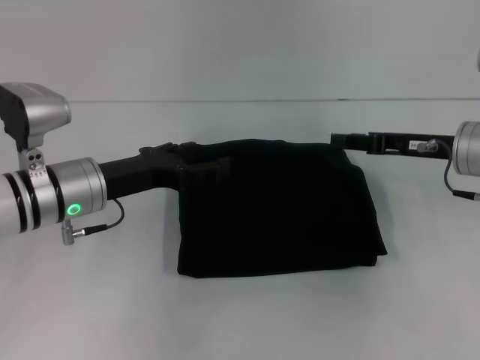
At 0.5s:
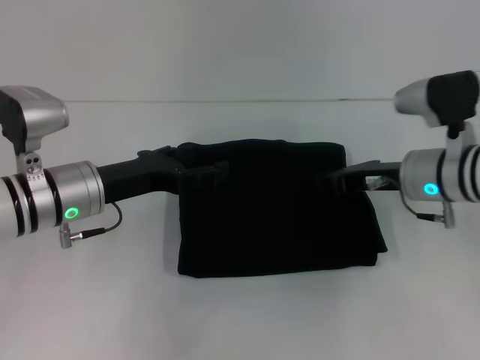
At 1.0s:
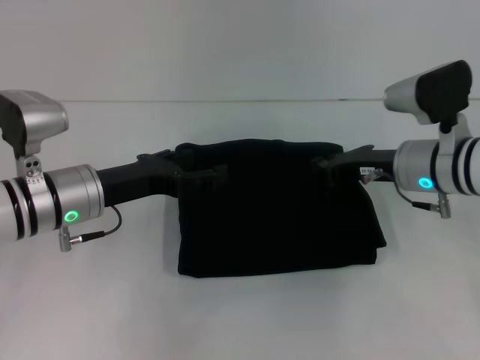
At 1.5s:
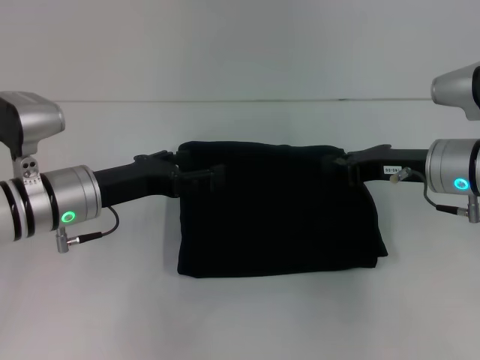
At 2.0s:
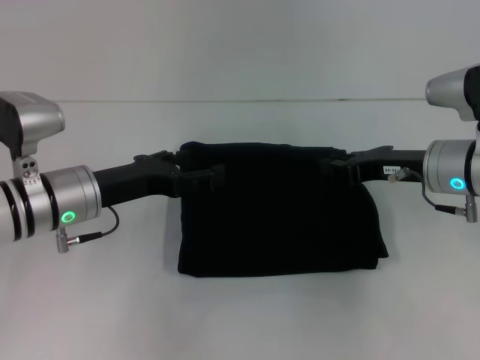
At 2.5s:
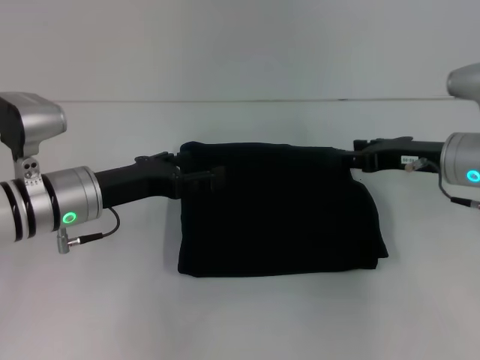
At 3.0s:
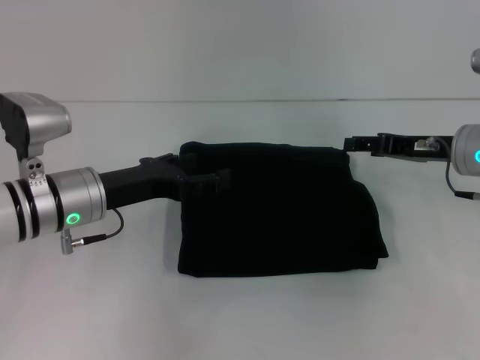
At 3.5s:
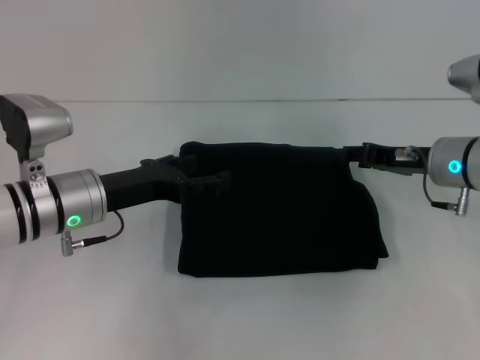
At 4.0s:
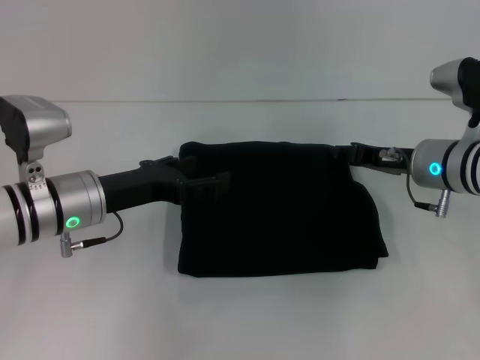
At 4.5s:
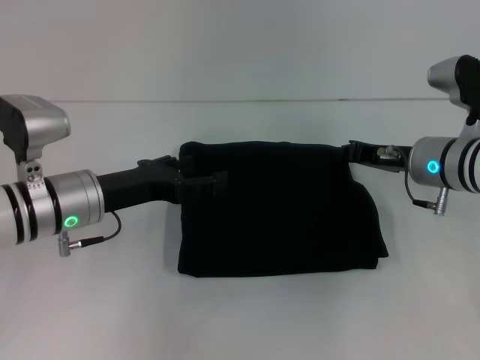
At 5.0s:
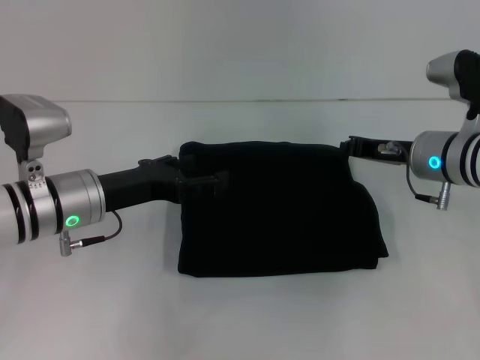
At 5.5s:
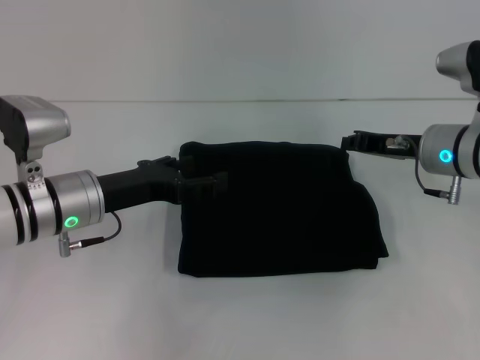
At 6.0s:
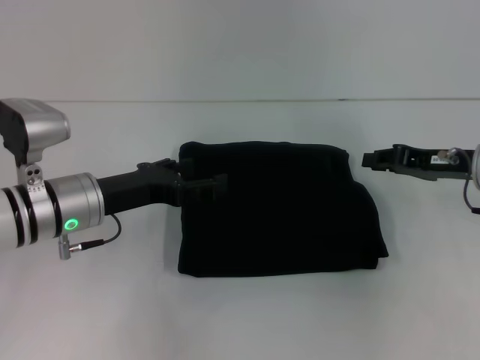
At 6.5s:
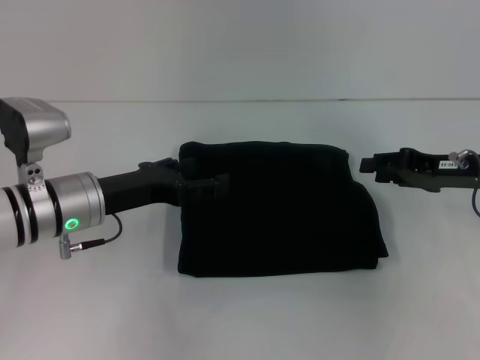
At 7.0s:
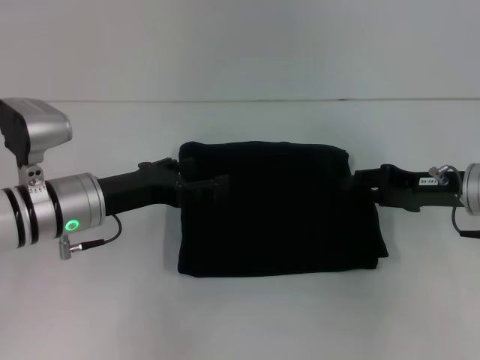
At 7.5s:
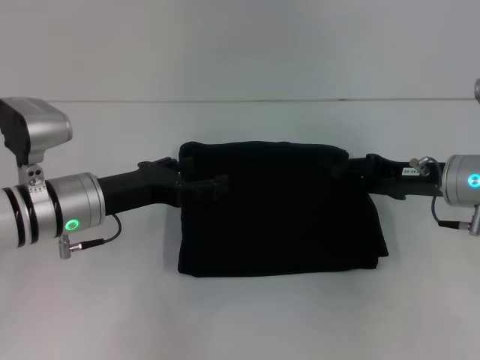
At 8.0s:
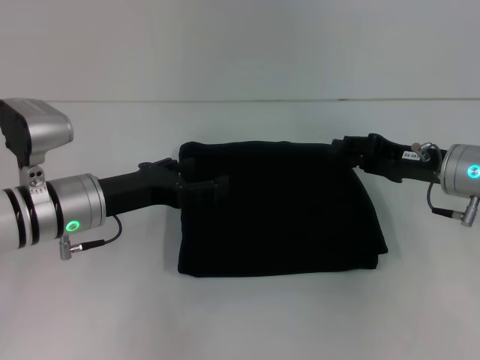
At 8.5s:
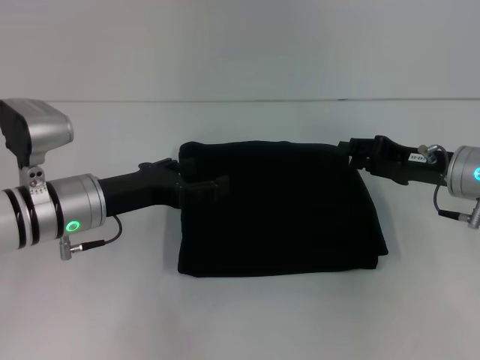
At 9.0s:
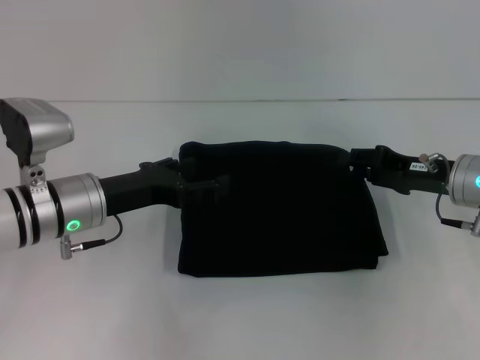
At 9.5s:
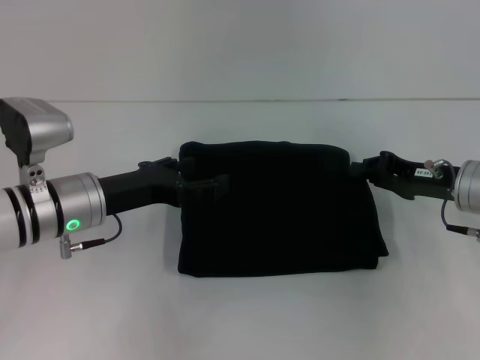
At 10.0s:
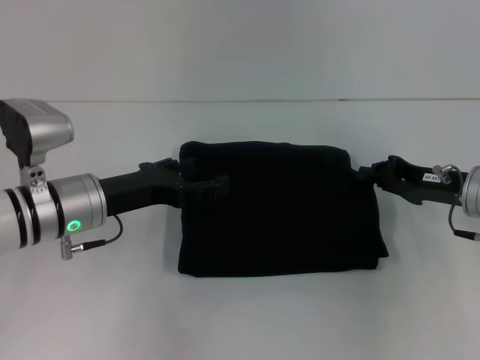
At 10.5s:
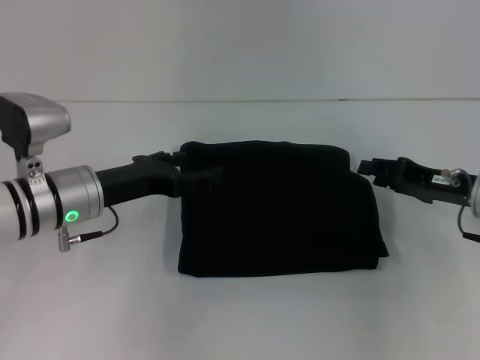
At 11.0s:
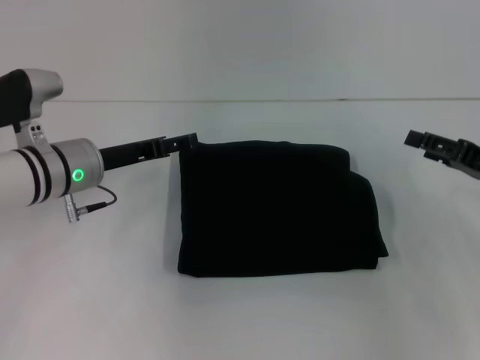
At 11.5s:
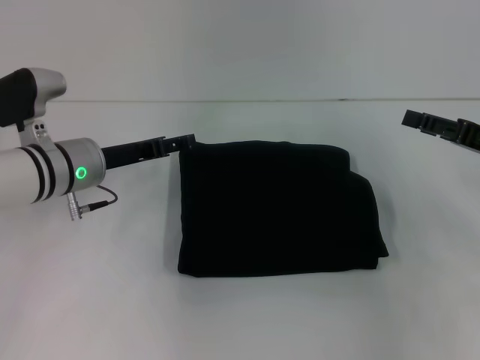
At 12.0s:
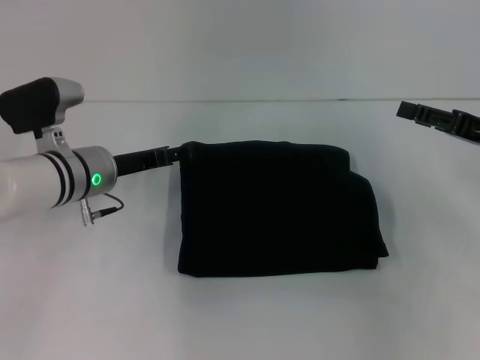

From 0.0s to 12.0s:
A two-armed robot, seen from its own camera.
From 0.0s to 2.0s: The right gripper closes up.
From 2.0s to 4.0s: The right gripper opens its fingers.
From 4.0s to 6.0s: The right gripper is displaced to the right by roughly 5 cm, and closes.
From 6.0s to 8.0s: The right gripper opens.
From 8.0s to 10.0s: The right gripper closes up.
From 10.0s to 12.0s: The right gripper is displaced to the right by roughly 5 cm, and opens up. The left gripper goes about 5 cm forward.

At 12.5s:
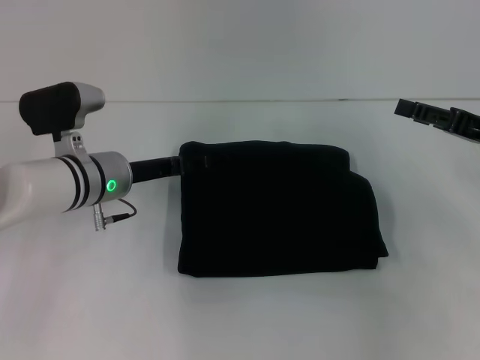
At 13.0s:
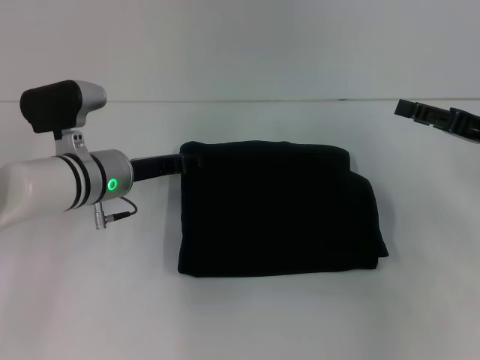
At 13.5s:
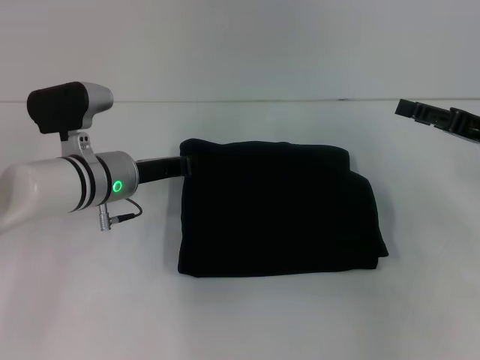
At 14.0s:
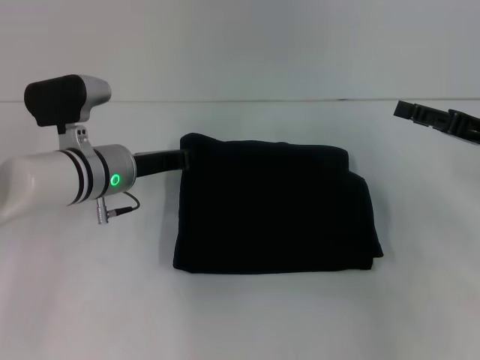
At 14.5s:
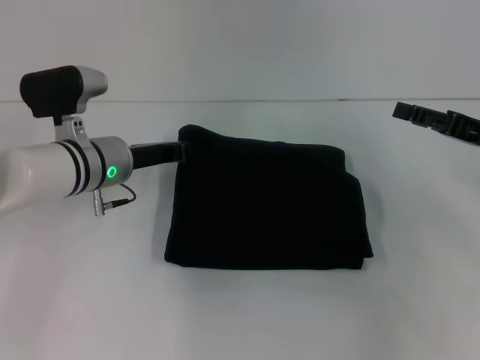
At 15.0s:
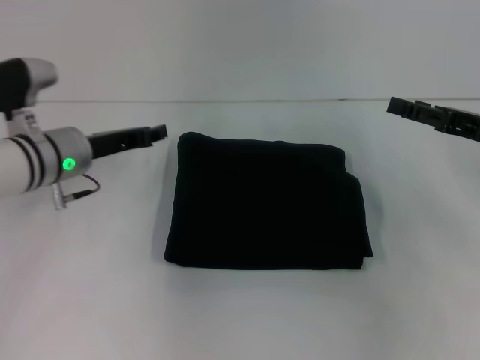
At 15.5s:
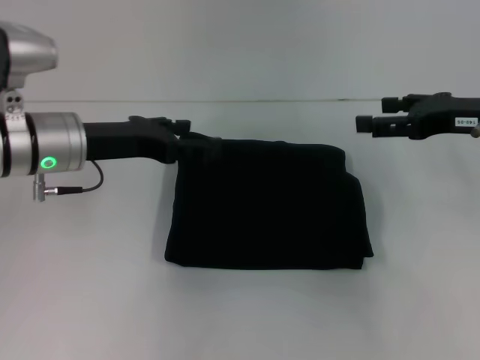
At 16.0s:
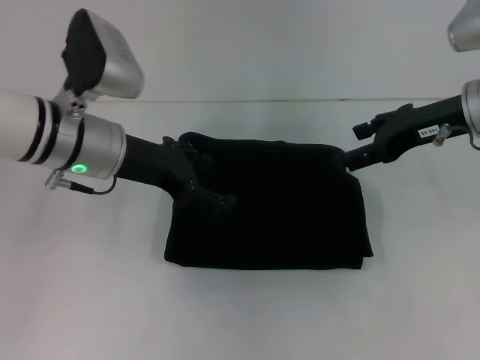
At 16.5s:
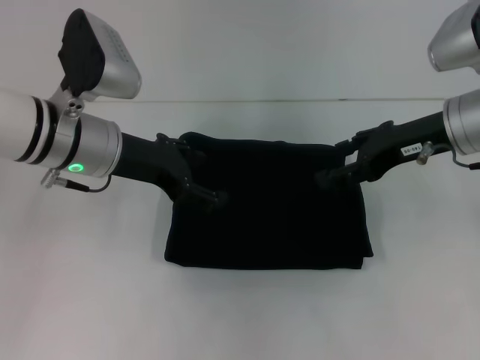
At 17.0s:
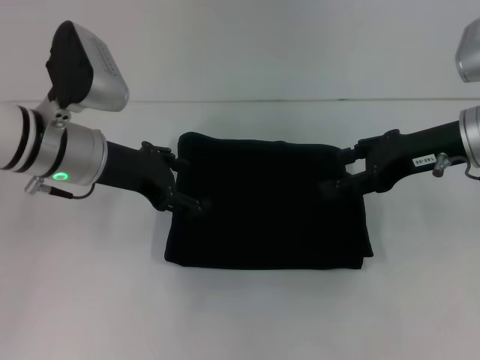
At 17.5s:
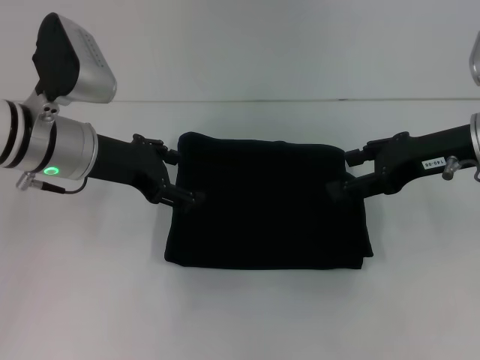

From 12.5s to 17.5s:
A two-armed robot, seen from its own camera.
From 12.5s to 15.0s: The left gripper closes up.
From 15.0s to 17.5s: The right gripper shifts approximately 5 cm to the left, while the left gripper goes about 5 cm upward, and opens up.

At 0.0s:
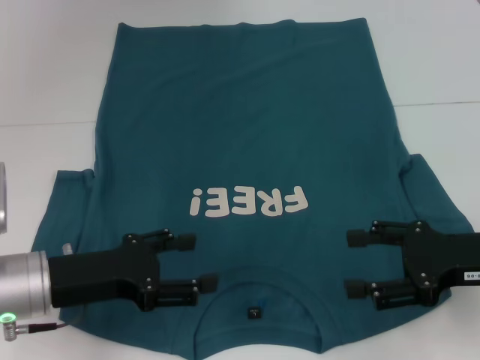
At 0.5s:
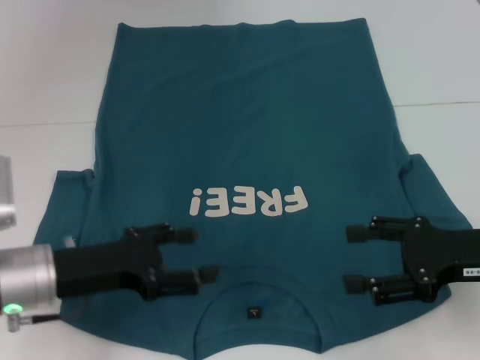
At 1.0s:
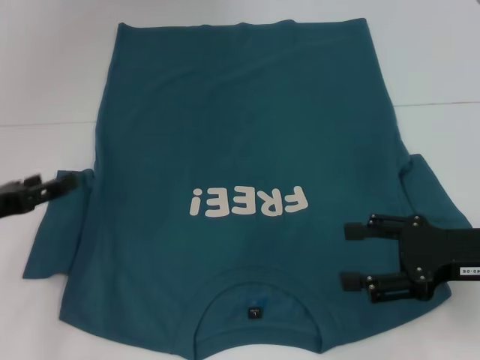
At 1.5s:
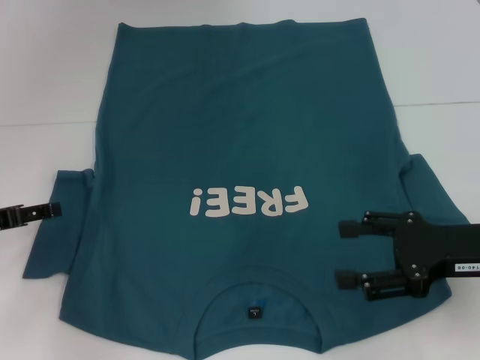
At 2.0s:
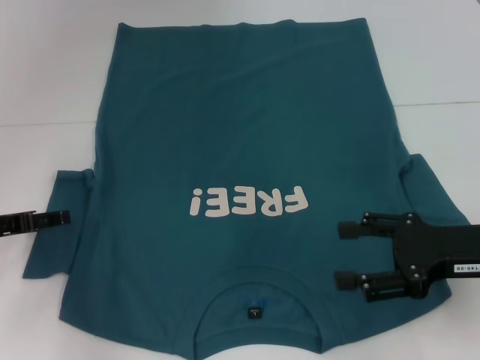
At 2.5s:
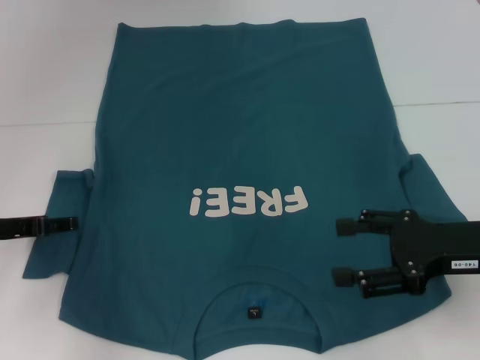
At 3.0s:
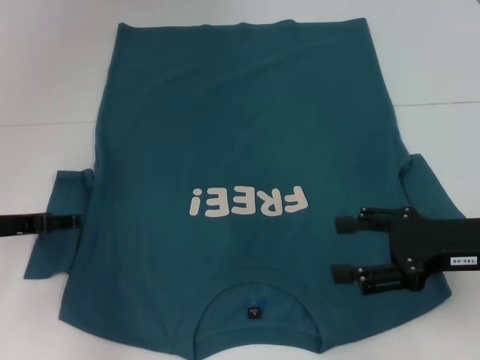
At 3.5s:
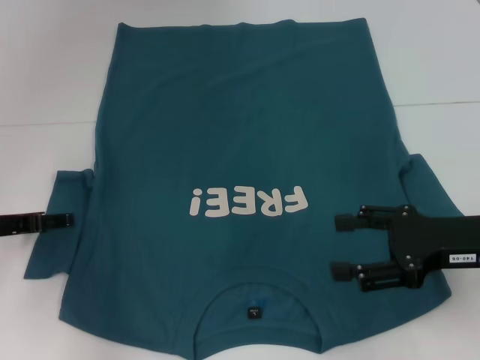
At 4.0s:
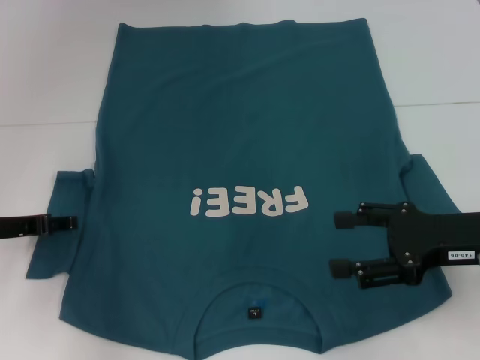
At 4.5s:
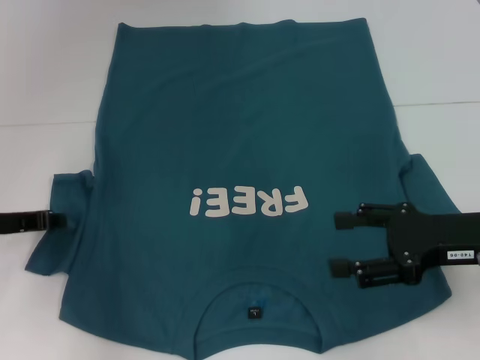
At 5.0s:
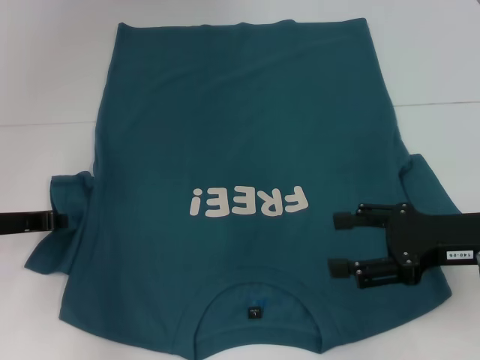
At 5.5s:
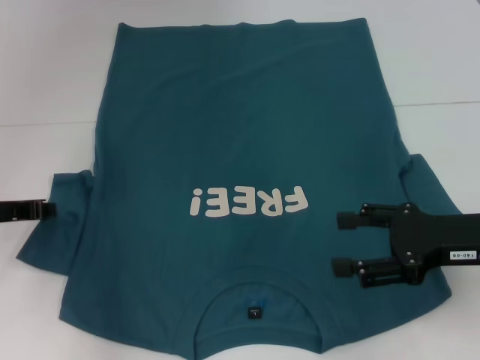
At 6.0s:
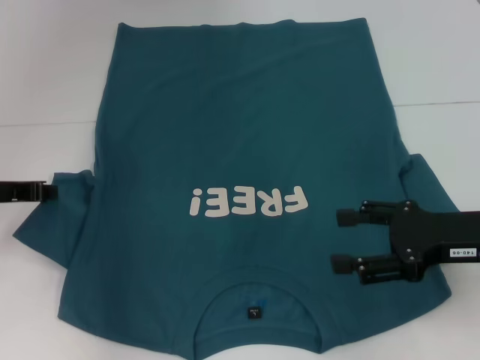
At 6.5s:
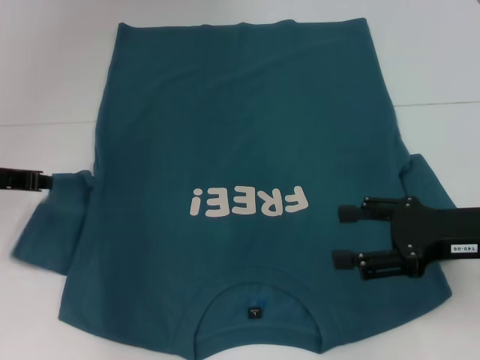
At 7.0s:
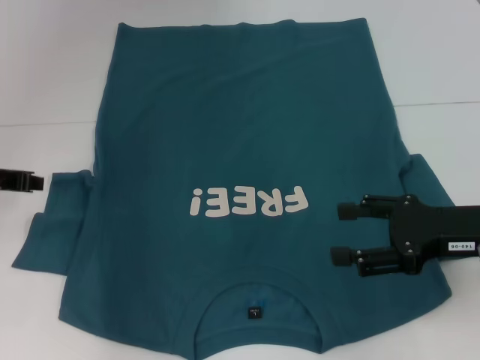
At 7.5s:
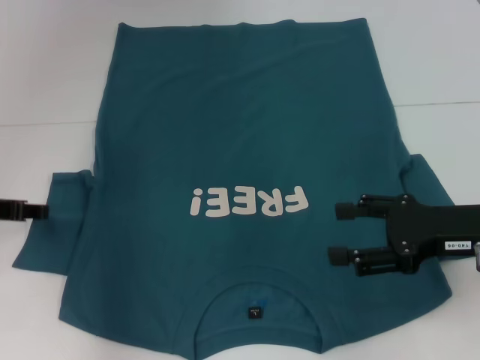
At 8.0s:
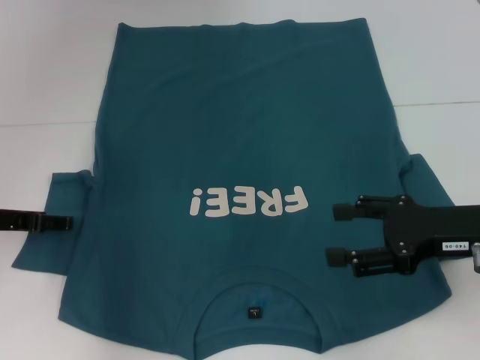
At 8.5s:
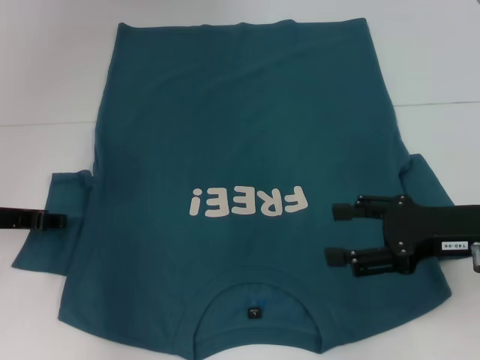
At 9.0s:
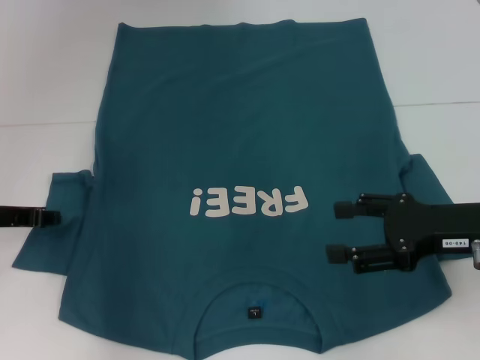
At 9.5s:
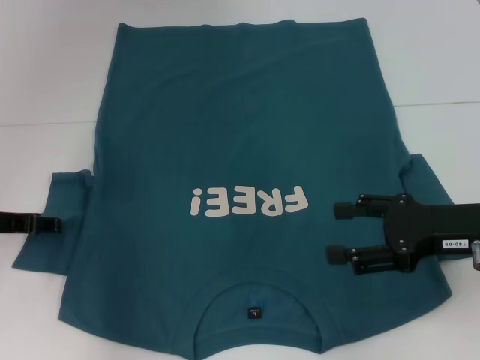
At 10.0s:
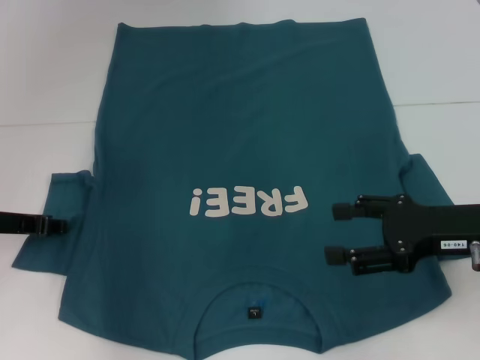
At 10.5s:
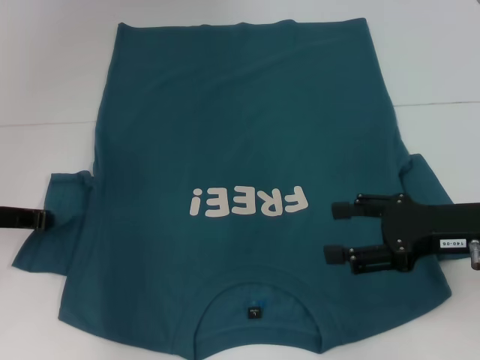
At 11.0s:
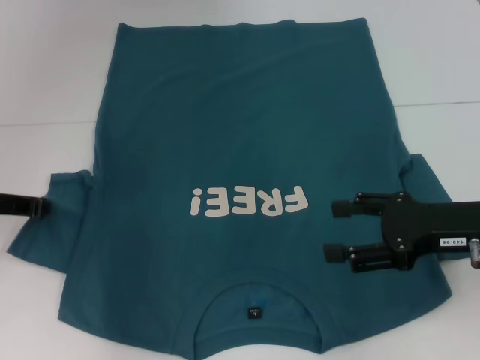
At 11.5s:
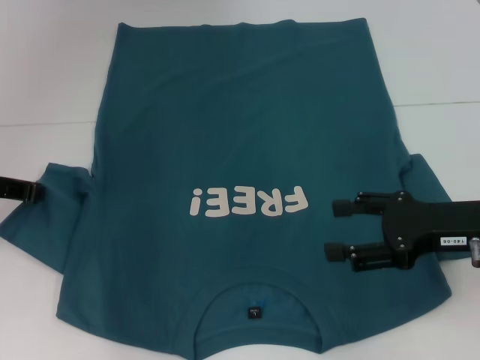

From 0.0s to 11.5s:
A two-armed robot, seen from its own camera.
From 0.0s to 2.0s: The left gripper heads to the left and forward, covering about 10 cm.
From 2.0s to 4.0s: The grippers stay close to where they were, moving slightly.
From 4.0s to 6.0s: The left gripper closes its fingers.
From 6.0s to 9.5s: The grippers move only a little.
From 9.5s to 11.5s: The left gripper closes up.
